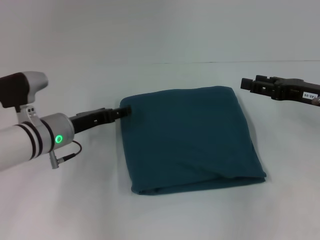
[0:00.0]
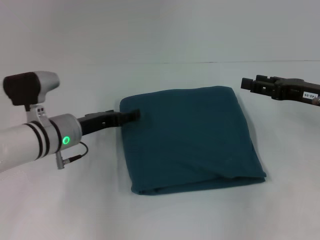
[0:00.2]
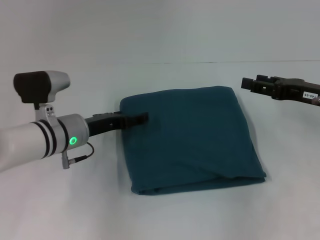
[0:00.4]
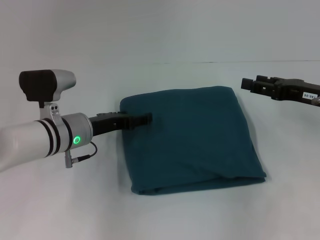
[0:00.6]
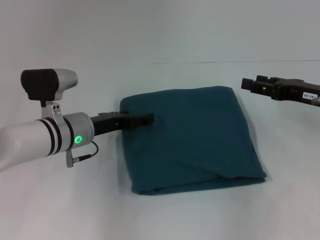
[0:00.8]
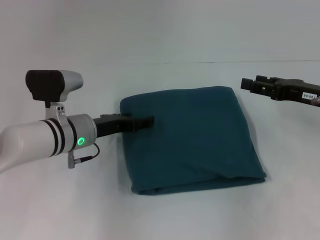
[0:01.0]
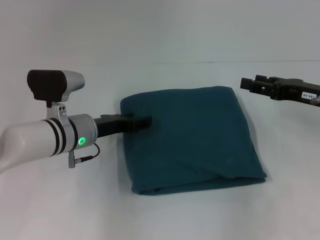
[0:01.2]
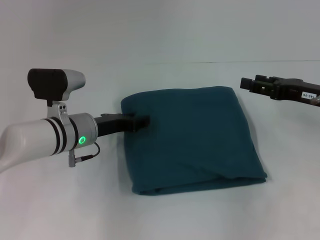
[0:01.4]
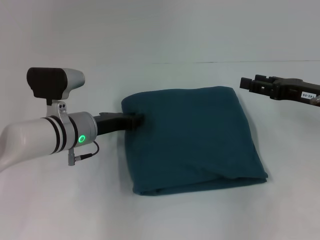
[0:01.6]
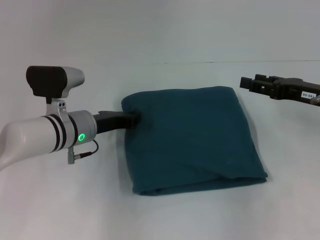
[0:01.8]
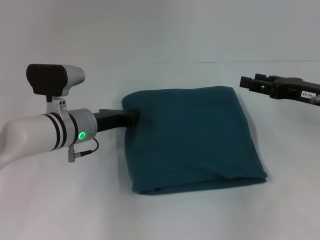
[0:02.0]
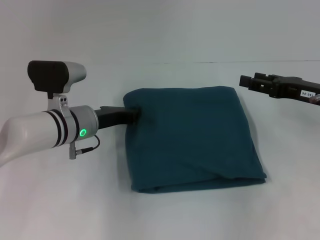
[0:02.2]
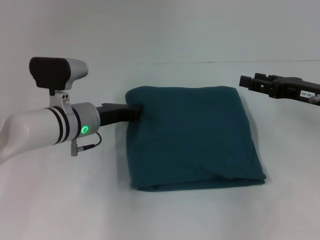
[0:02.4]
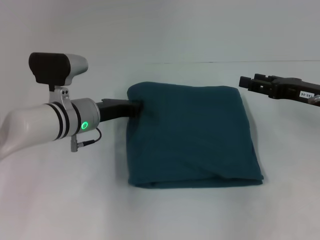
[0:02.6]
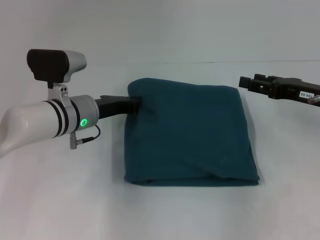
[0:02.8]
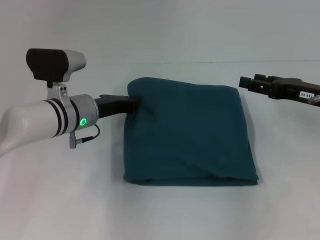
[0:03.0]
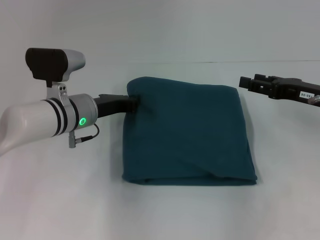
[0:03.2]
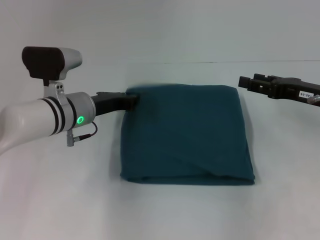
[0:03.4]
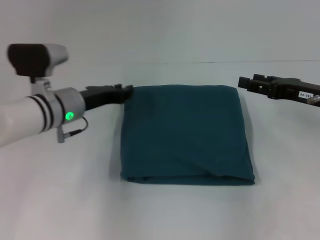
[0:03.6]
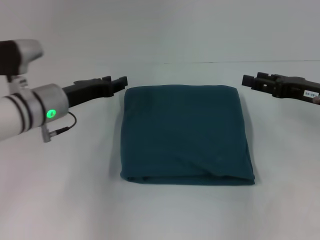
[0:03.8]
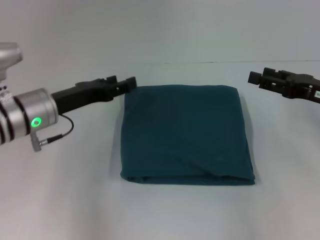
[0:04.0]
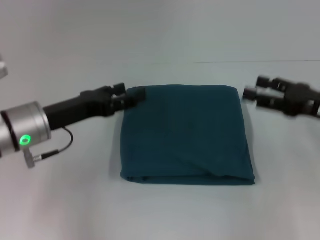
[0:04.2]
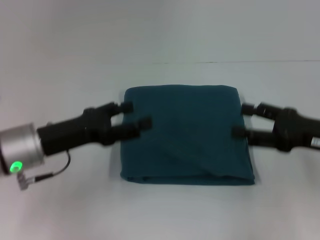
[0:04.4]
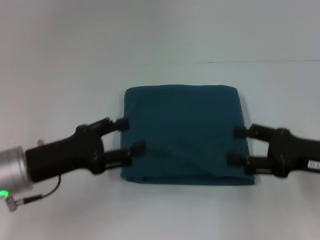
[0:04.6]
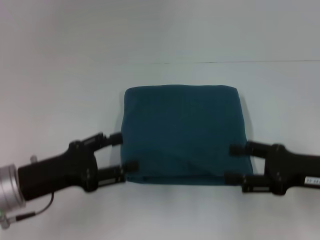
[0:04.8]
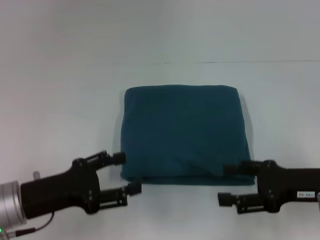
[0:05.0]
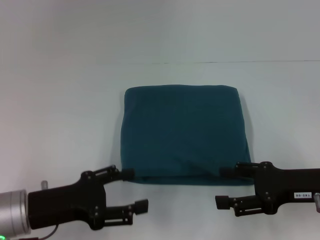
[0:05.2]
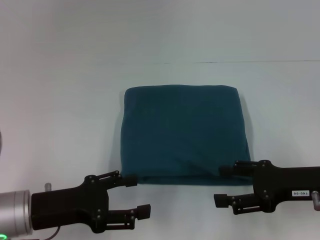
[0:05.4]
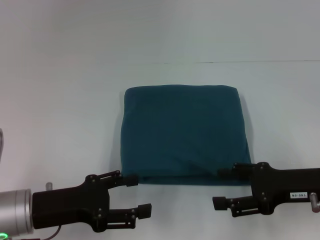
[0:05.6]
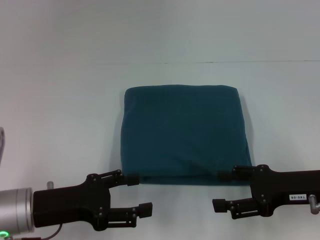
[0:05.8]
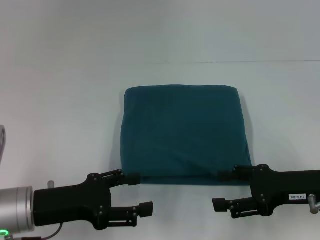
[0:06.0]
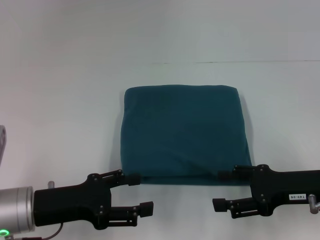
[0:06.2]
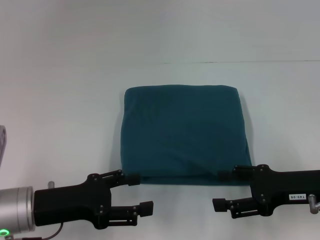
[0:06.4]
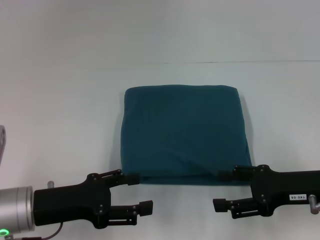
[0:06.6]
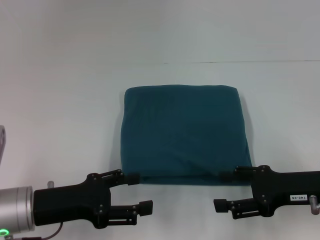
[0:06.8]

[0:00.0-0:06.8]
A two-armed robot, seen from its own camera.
0:00.0 to 0:01.4: The grippers move only a little.
0:01.4 to 0:02.8: The left gripper closes its fingers.
0:02.8 to 0:04.0: The left gripper is displaced to the left by roughly 5 cm, and opens up.
0:04.0 to 0:05.4: The left gripper shifts some 10 cm backward, and opens its fingers; the right gripper goes about 5 cm backward.
0:05.4 to 0:06.8: Both grippers stay about where they are.

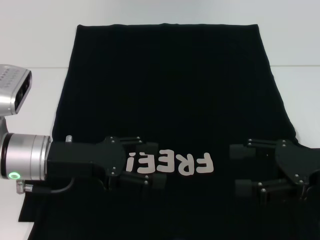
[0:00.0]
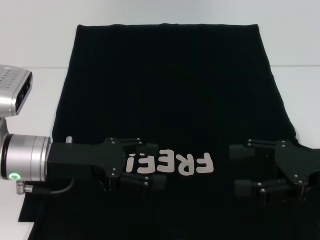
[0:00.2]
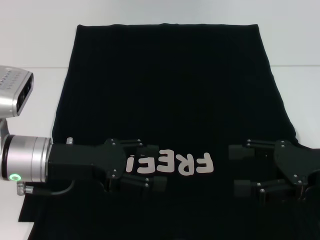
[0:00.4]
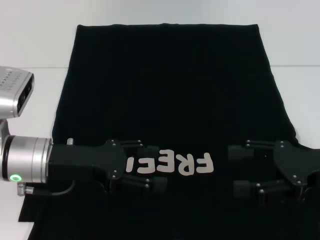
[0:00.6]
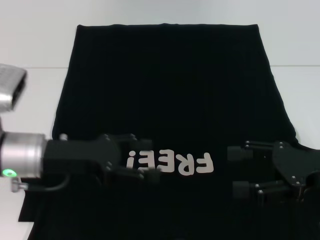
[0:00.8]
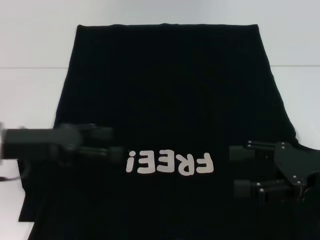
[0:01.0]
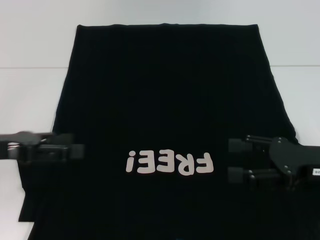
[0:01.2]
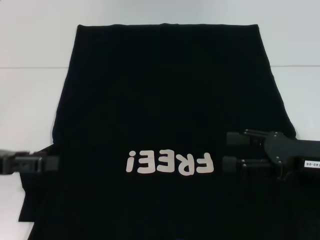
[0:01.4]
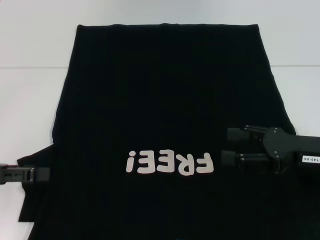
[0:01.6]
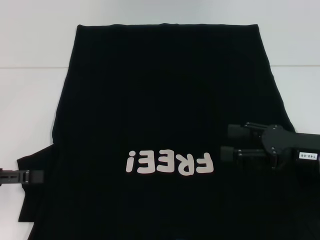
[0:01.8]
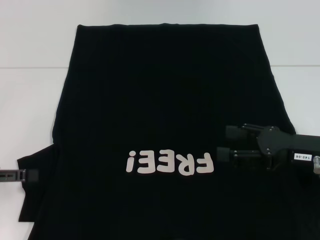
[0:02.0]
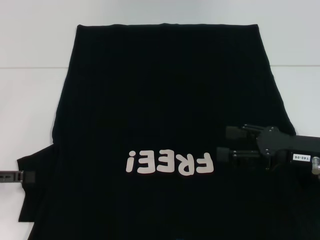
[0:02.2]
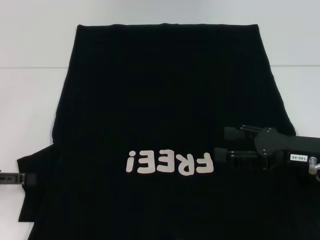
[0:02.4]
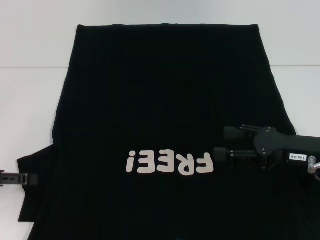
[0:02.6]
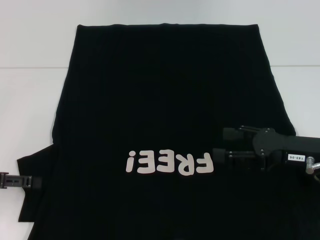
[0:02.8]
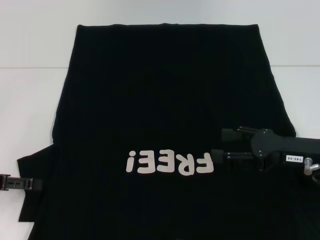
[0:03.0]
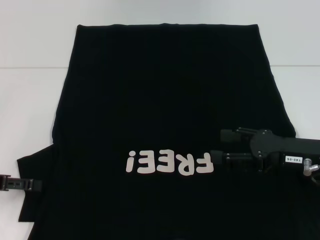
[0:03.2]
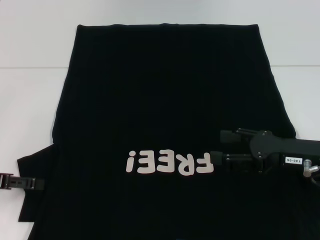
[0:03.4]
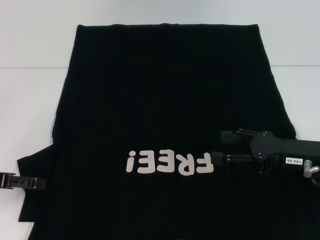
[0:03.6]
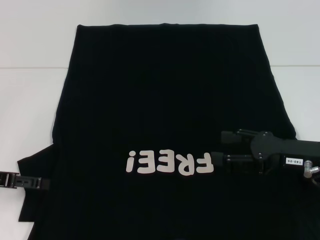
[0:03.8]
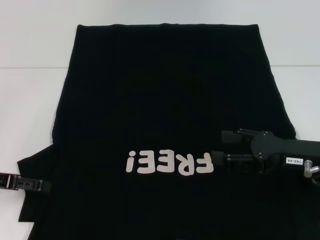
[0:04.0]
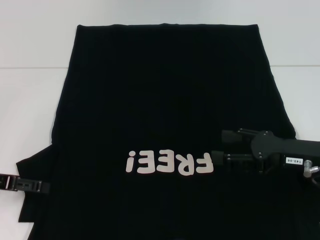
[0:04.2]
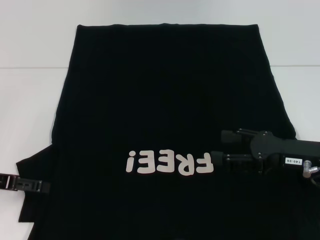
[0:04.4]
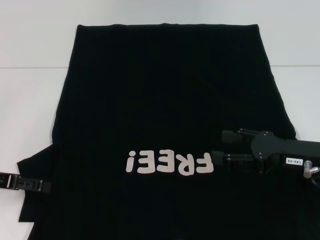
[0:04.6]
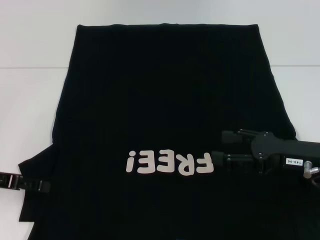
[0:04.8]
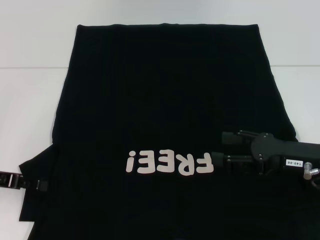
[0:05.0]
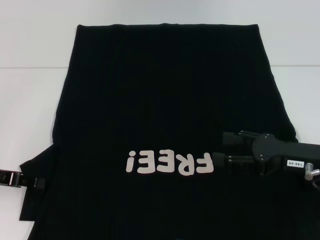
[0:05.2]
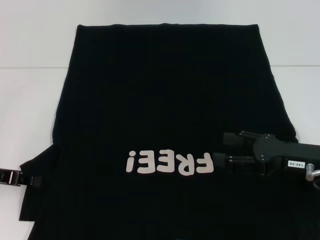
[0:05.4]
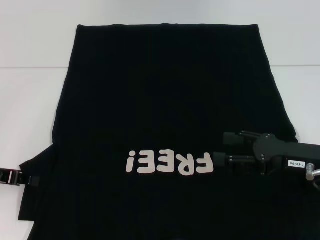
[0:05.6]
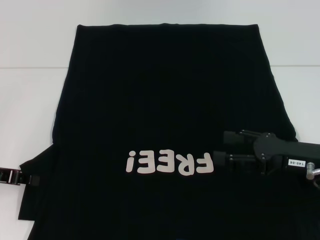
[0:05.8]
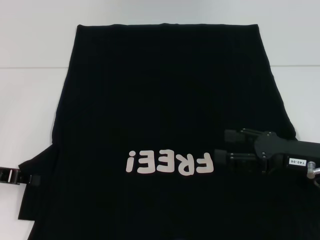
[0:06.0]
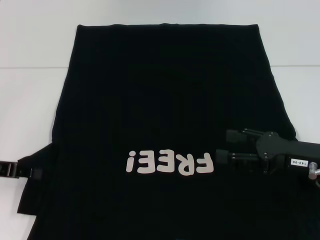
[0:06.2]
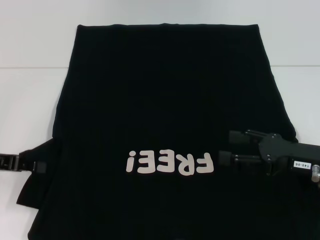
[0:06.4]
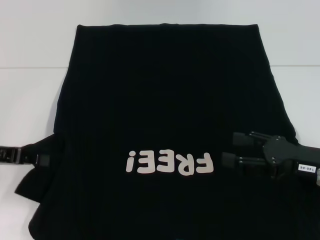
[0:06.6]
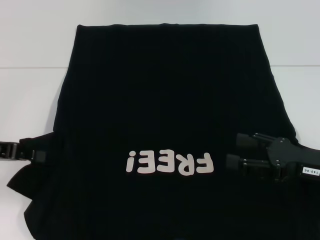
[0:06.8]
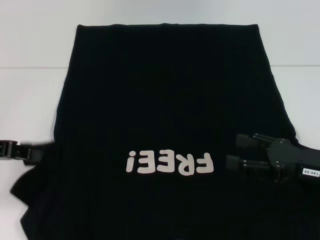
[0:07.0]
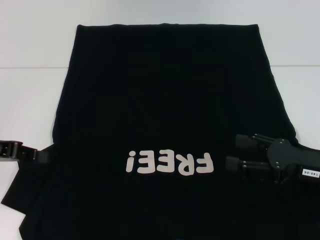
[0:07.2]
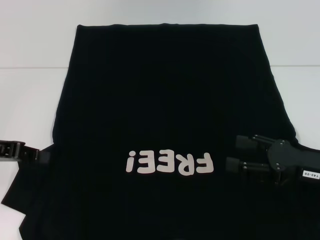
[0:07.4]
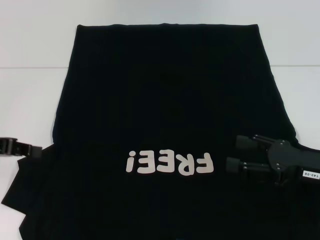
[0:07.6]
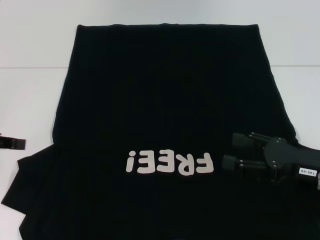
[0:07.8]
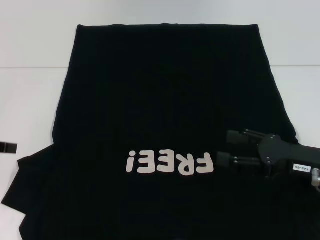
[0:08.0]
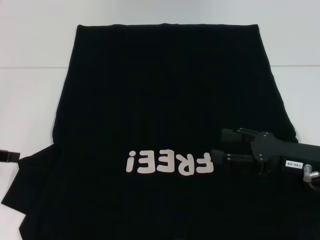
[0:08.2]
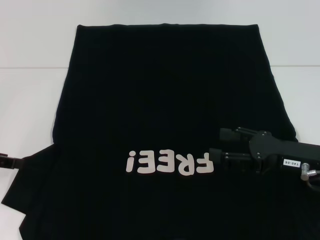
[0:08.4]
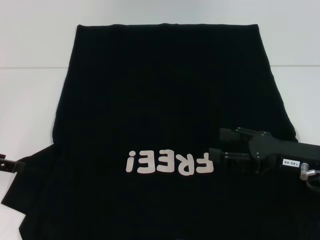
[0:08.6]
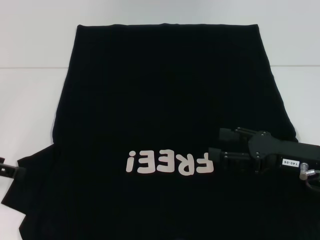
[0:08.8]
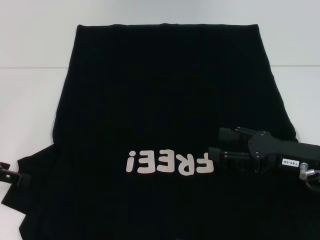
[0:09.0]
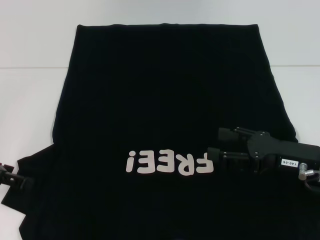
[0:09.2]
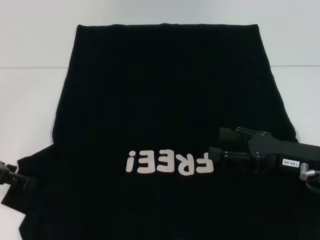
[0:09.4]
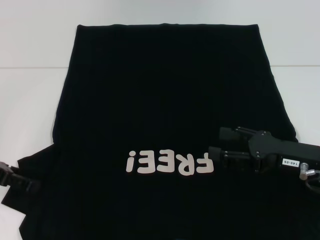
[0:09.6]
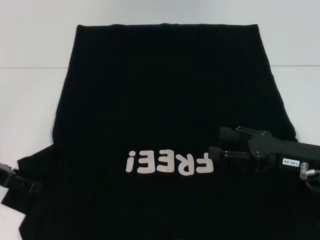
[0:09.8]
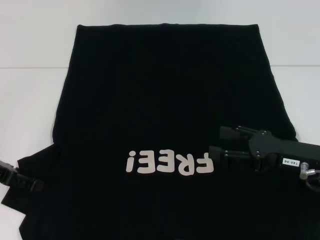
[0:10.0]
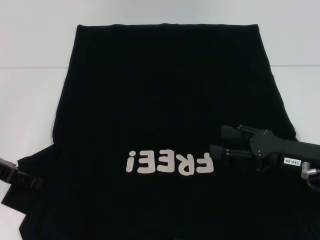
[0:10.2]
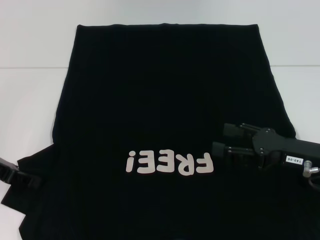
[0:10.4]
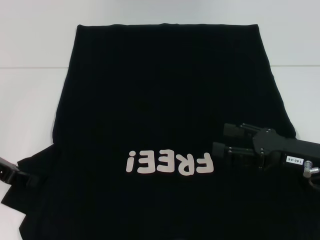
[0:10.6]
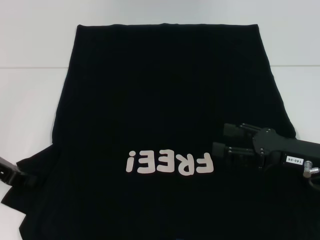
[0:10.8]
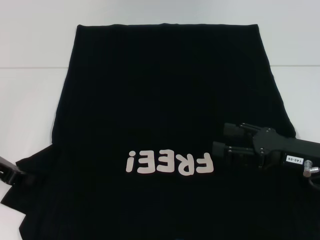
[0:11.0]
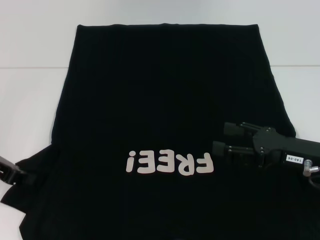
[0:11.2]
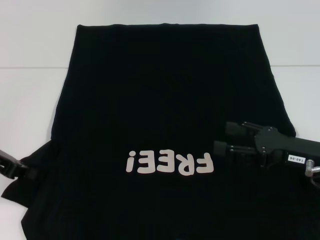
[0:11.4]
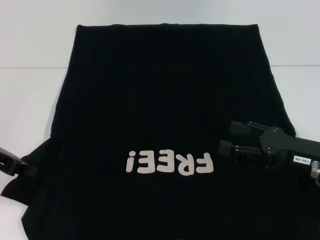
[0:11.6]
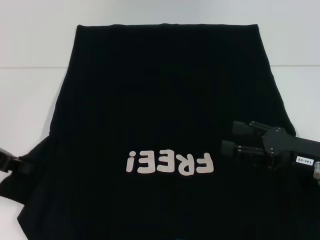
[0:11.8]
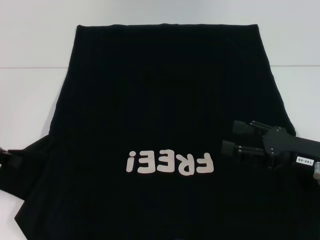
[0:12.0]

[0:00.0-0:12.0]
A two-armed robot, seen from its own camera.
0:00.0 to 0:01.6: The left gripper shifts approximately 15 cm to the left.
0:01.6 to 0:03.0: The grippers stay close to where they were, moving slightly.
0:03.0 to 0:04.4: There are only small adjustments of the grippers.
0:04.4 to 0:06.0: The left gripper closes up.
0:06.0 to 0:07.6: The left gripper travels upward by roughly 5 cm.
0:07.6 to 0:09.0: The left gripper opens its fingers.
0:09.0 to 0:10.4: The grippers move only a little.
0:10.4 to 0:12.0: The left gripper moves upward, about 5 cm, and closes up.

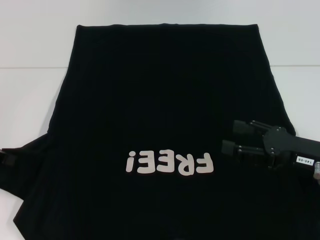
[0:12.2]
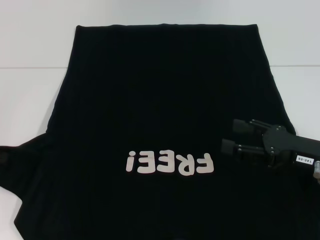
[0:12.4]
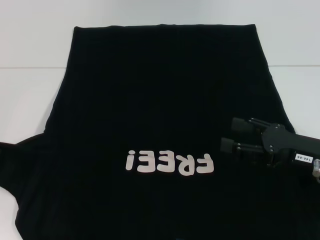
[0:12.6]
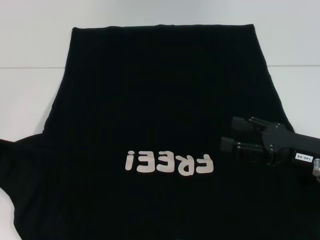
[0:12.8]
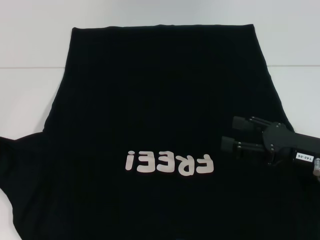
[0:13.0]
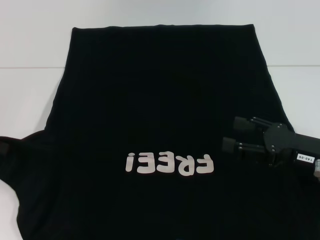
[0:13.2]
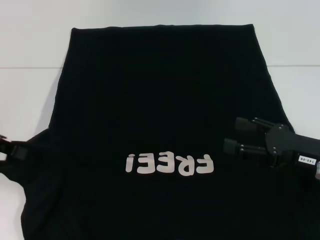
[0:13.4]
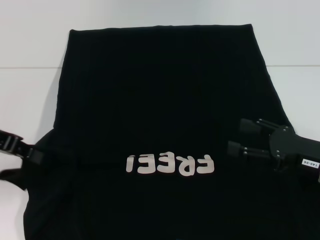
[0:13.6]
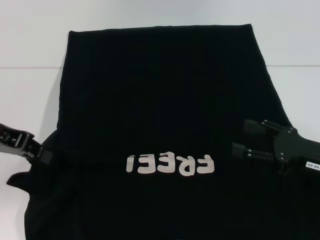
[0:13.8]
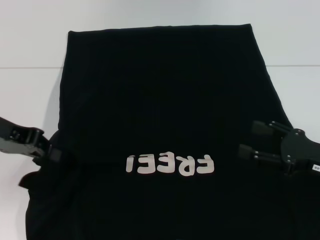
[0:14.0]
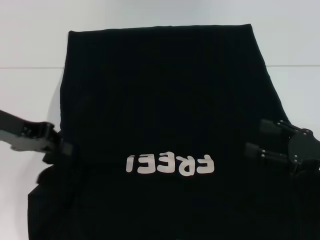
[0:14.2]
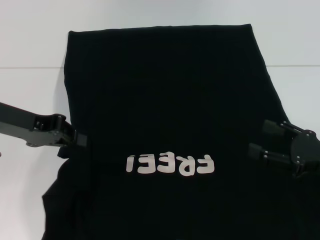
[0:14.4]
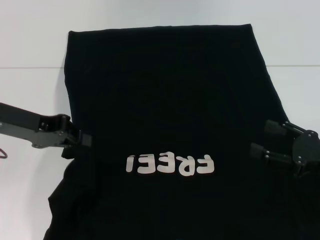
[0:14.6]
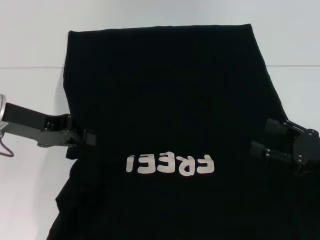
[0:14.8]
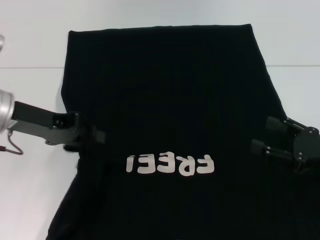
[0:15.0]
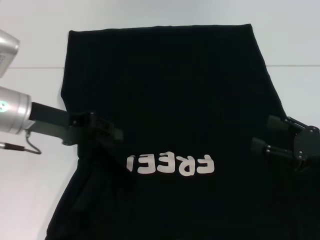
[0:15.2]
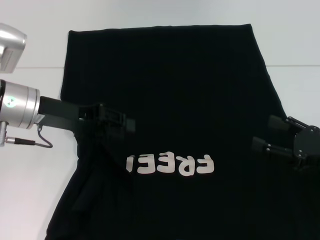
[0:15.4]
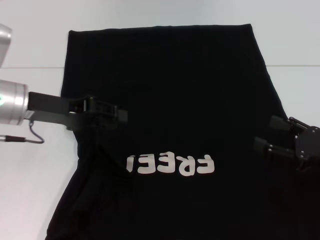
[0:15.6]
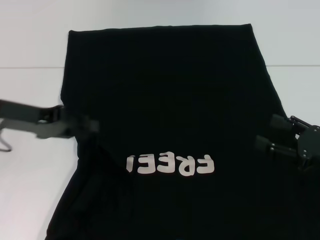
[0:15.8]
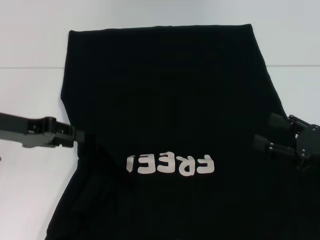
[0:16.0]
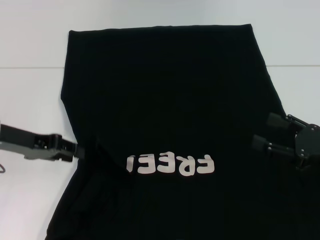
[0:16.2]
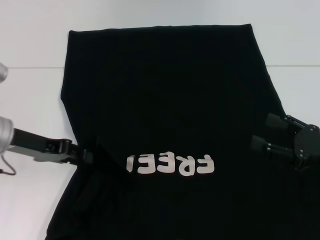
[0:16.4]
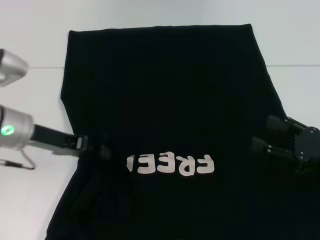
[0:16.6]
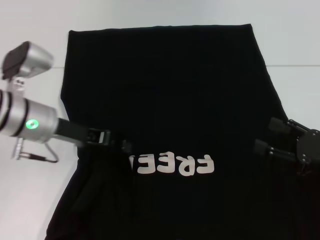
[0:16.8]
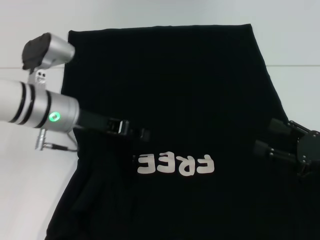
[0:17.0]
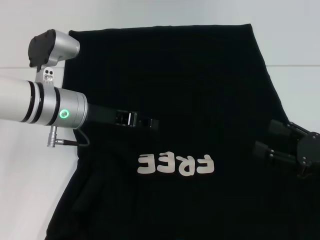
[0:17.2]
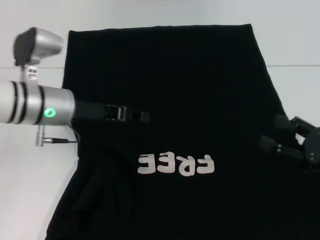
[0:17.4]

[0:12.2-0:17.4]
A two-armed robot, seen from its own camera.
Step, 0:12.2 to 0:17.2: Fold the bottom left sleeve with your left hand.
0:12.2 to 0:14.0: The left gripper heads to the right, covering roughly 5 cm.
0:14.0 to 0:15.6: The left gripper moves roughly 5 cm, and opens up.
0:15.6 to 0:17.4: The left gripper moves roughly 5 cm.
